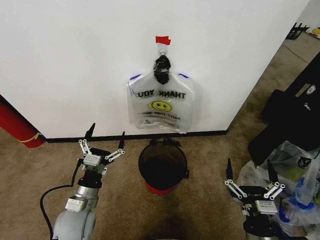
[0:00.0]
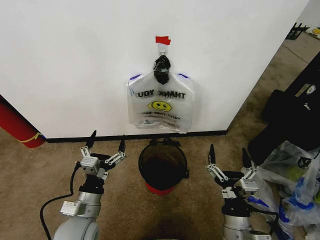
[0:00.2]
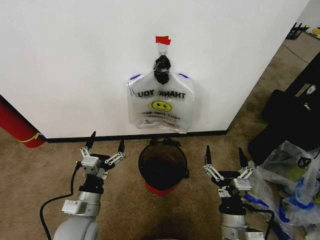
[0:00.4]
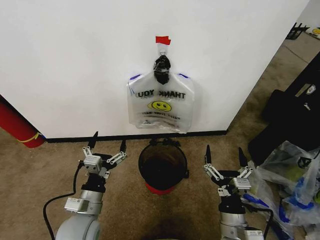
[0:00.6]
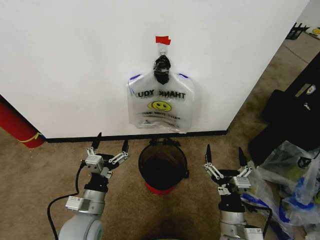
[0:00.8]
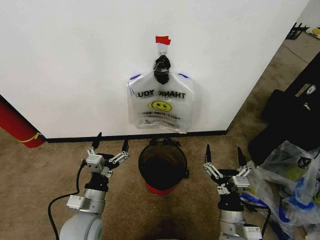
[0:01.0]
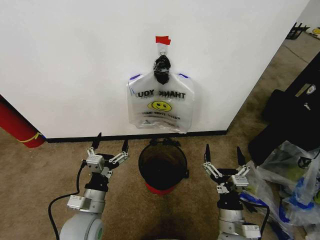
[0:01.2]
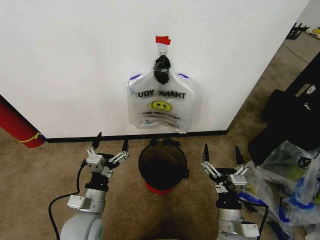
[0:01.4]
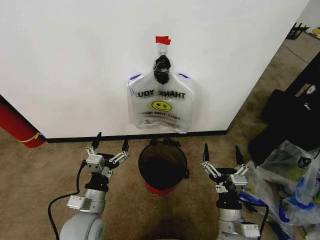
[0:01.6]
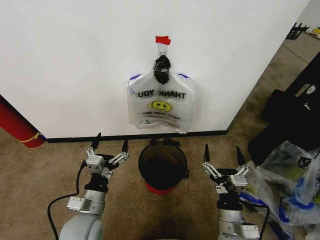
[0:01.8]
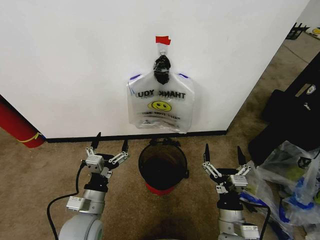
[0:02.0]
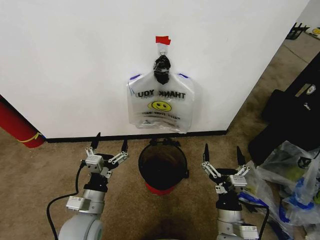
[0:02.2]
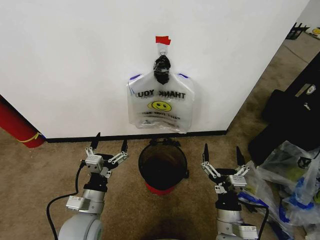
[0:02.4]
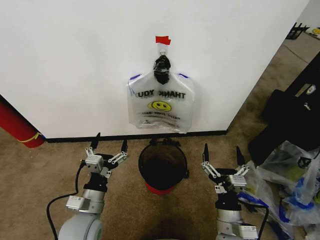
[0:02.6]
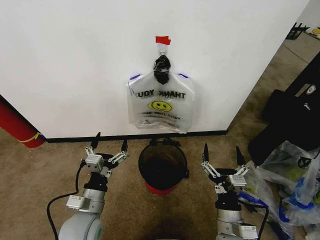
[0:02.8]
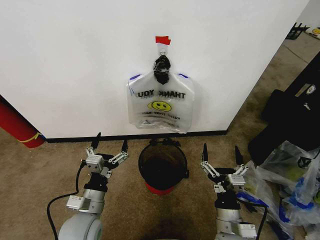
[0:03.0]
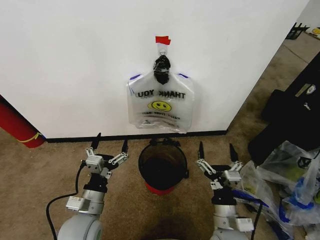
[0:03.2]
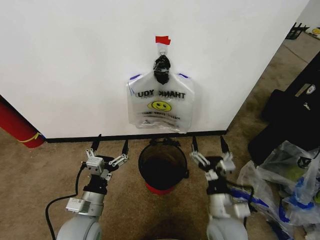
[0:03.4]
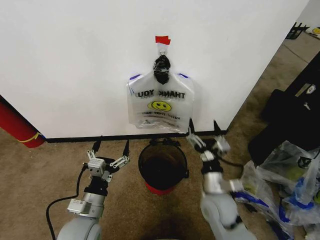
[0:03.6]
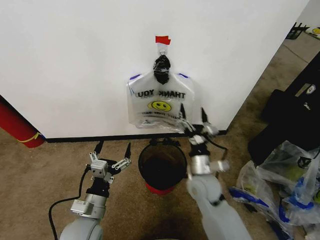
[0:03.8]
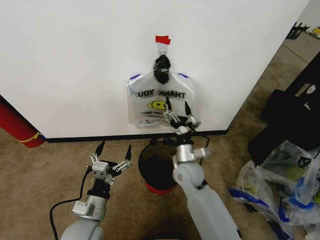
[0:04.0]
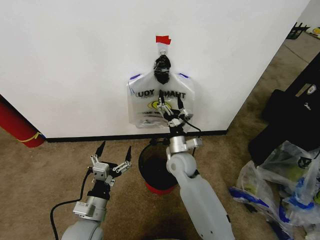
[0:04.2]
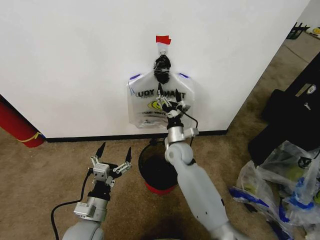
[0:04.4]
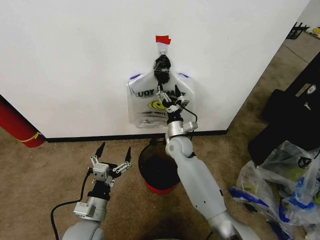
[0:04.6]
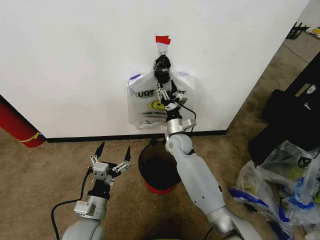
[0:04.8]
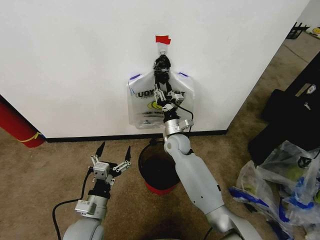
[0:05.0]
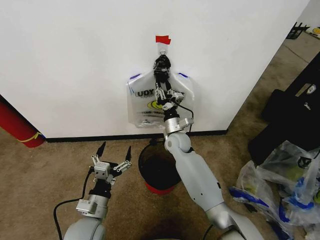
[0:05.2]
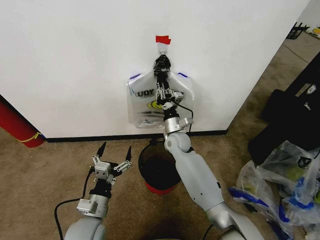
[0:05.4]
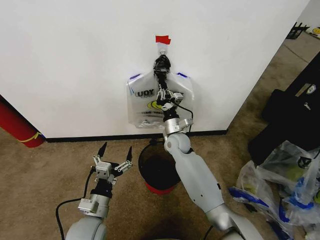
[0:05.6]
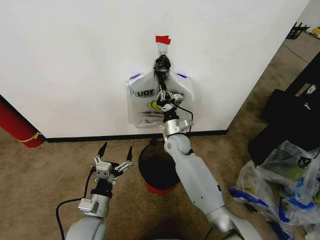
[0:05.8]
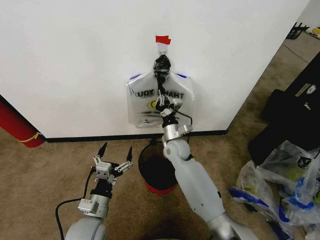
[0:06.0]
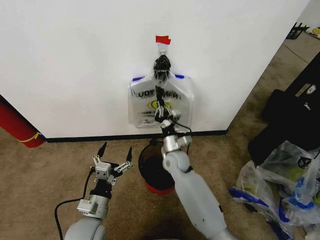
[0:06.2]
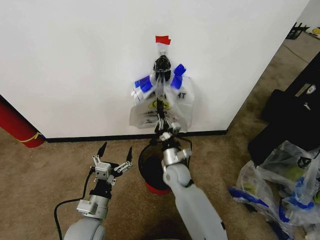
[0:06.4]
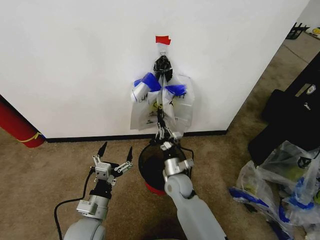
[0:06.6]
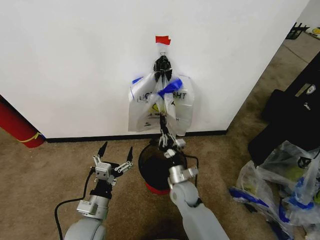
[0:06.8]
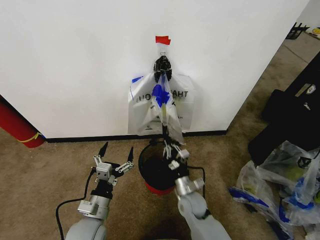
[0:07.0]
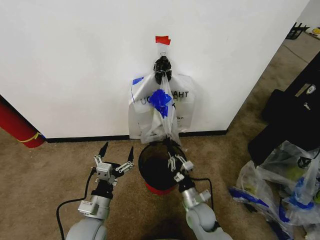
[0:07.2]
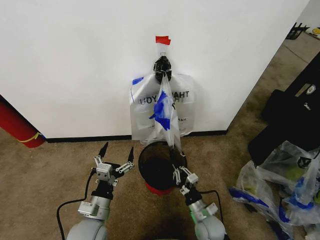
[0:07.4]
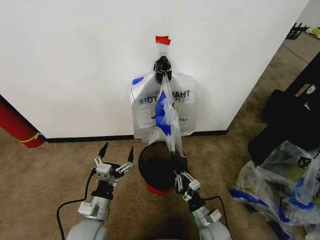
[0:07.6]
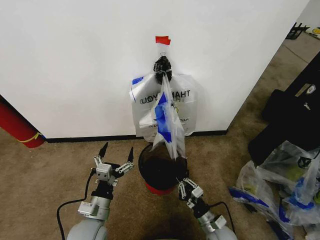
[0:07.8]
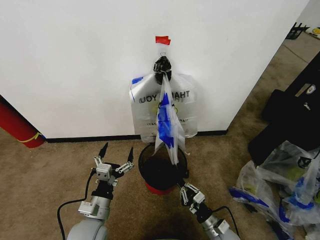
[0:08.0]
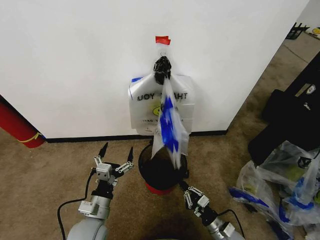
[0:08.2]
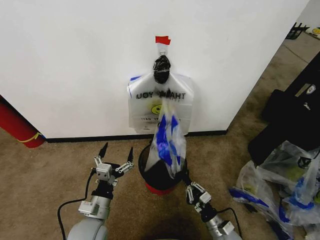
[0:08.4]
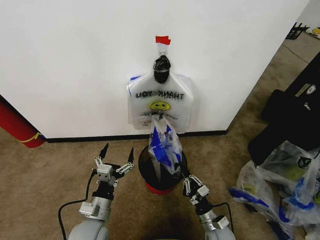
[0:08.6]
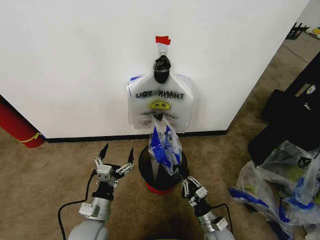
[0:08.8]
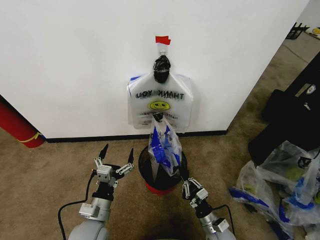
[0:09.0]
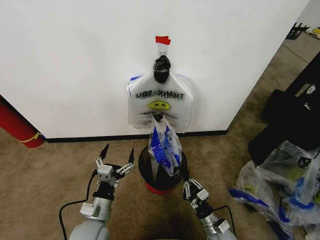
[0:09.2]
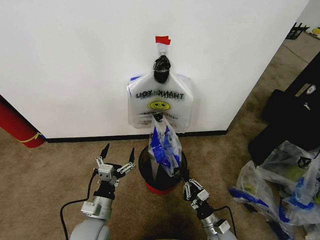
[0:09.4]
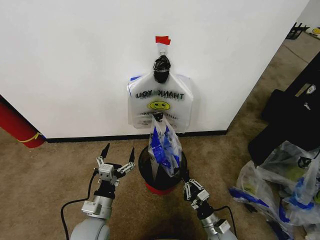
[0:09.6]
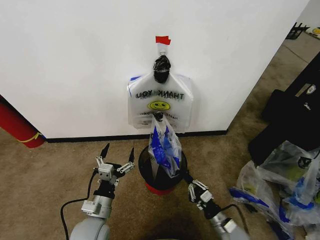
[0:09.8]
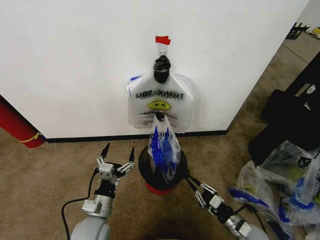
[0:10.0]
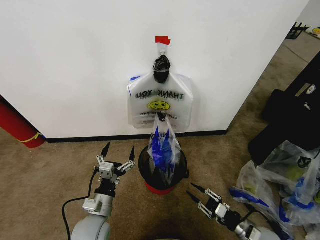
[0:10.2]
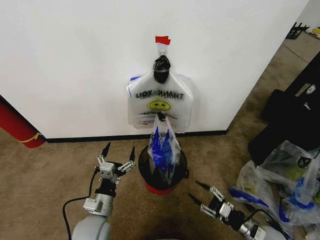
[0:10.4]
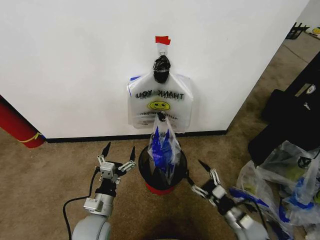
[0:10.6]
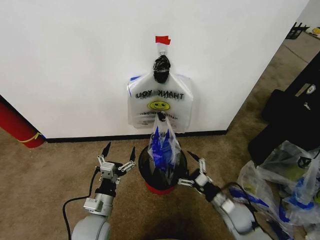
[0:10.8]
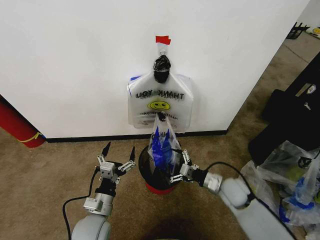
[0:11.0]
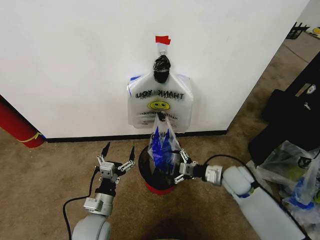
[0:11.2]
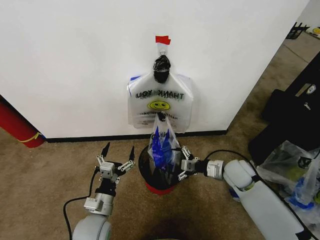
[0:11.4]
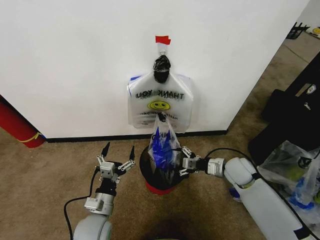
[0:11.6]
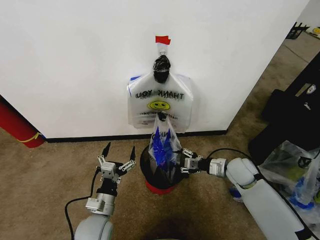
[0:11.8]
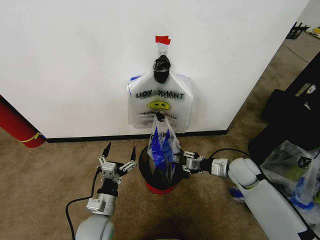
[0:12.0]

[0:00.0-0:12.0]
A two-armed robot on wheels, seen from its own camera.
Task of the whole recording: Pick up the garbage bag from the wall and place it over the trash bin.
0:01.6 to 0:03.0: The two grippers keep their place.
0:03.0 to 0:04.4: The right gripper shifts approximately 30 cm forward.
0:04.4 to 0:06.0: The right gripper closes.
0:06.0 to 0:07.6: The right gripper shifts some 30 cm backward, downward and to the right.
0:09.0 to 0:10.4: The right gripper moves to the right, about 15 cm, and opens its fingers.
0:10.4 to 0:12.0: The right gripper travels forward, upward and to the left by about 25 cm, and opens, then closes once more.

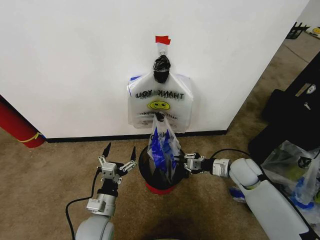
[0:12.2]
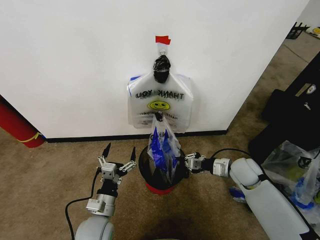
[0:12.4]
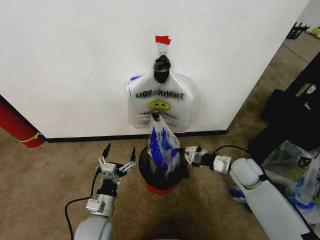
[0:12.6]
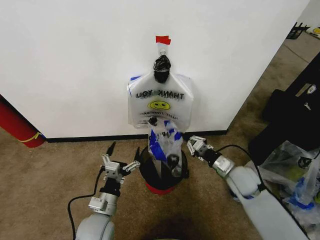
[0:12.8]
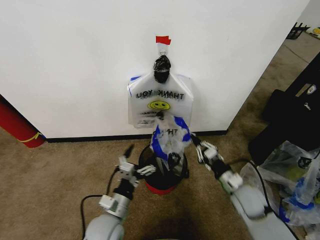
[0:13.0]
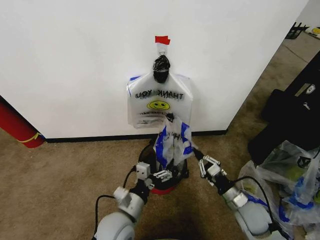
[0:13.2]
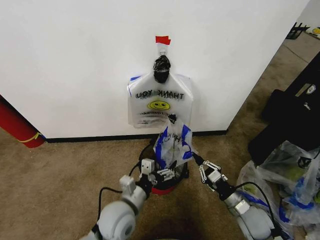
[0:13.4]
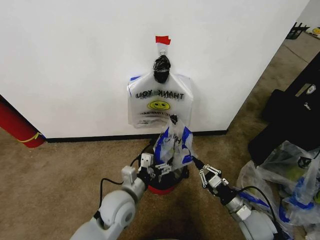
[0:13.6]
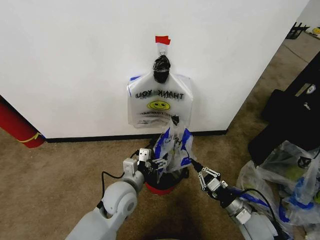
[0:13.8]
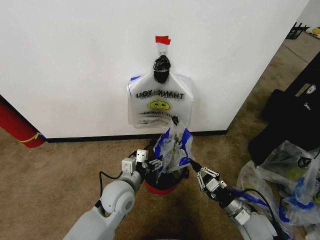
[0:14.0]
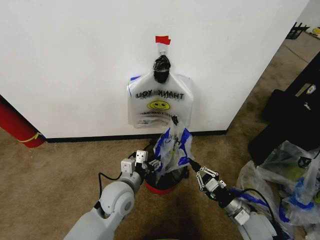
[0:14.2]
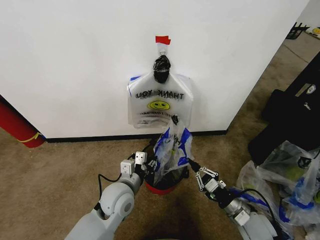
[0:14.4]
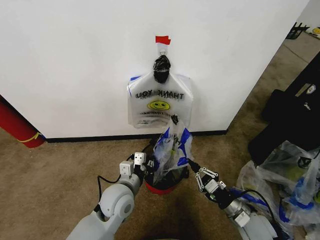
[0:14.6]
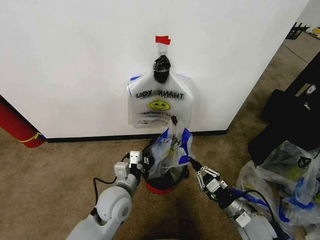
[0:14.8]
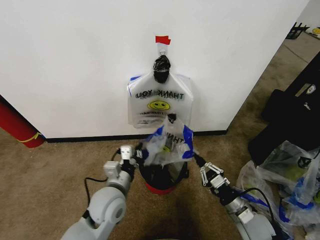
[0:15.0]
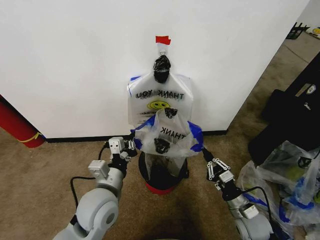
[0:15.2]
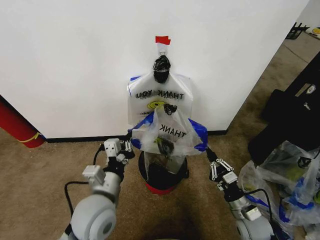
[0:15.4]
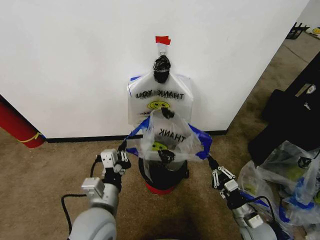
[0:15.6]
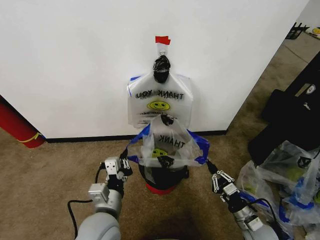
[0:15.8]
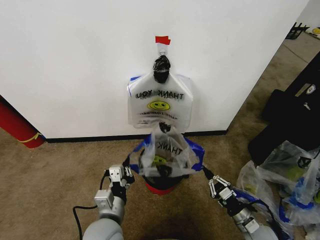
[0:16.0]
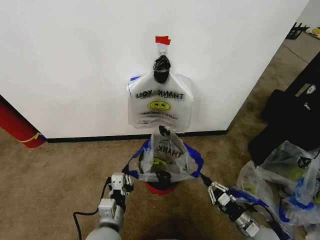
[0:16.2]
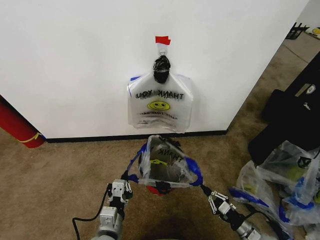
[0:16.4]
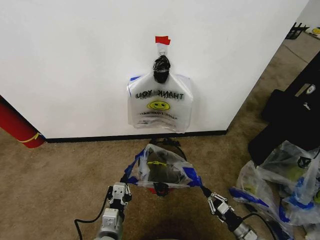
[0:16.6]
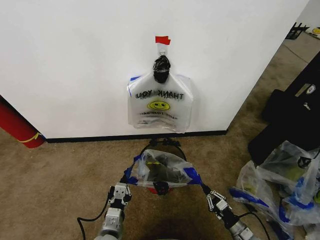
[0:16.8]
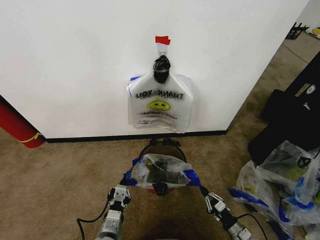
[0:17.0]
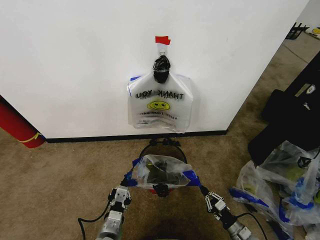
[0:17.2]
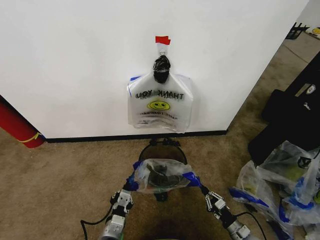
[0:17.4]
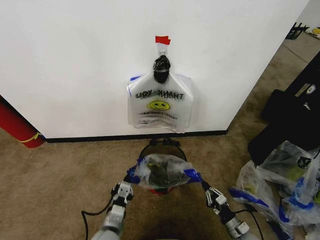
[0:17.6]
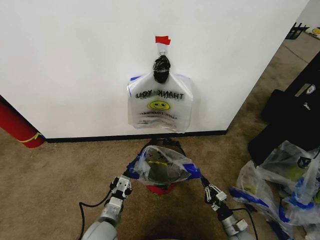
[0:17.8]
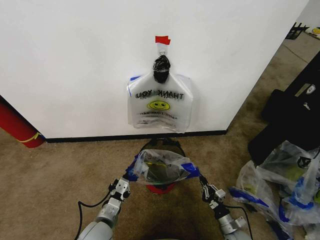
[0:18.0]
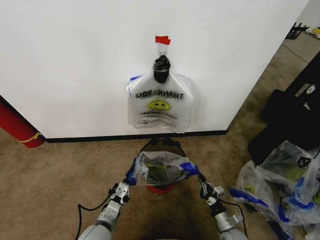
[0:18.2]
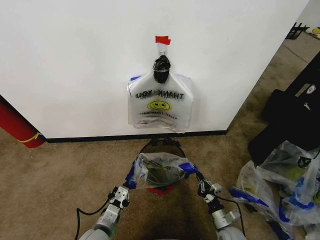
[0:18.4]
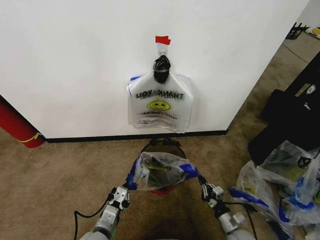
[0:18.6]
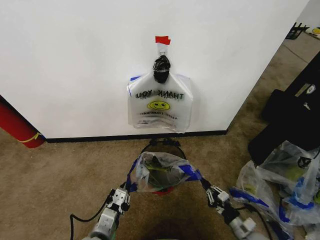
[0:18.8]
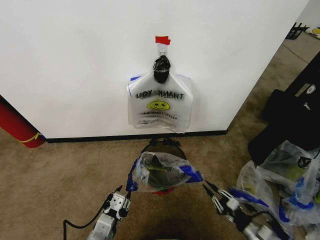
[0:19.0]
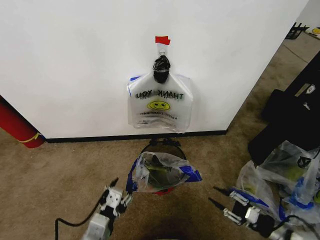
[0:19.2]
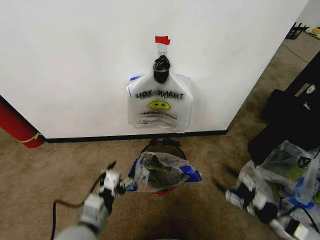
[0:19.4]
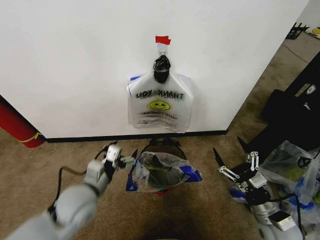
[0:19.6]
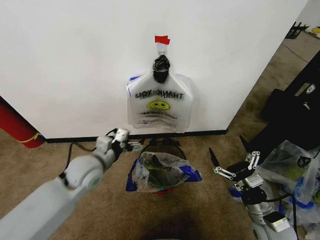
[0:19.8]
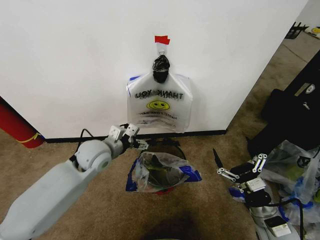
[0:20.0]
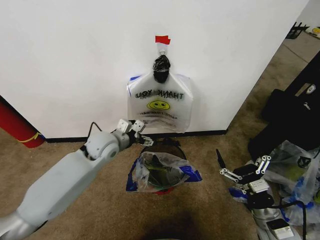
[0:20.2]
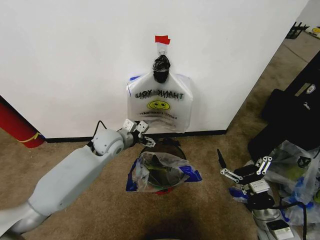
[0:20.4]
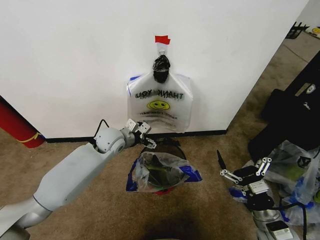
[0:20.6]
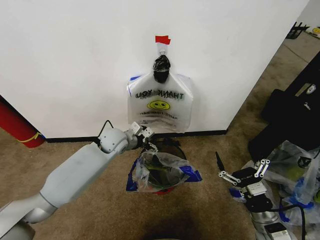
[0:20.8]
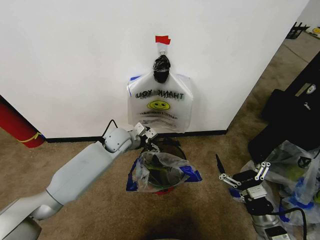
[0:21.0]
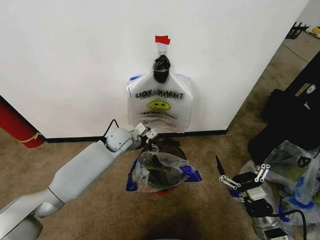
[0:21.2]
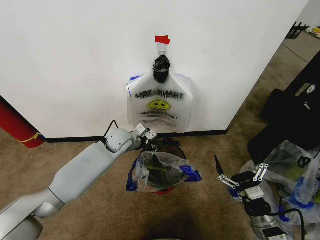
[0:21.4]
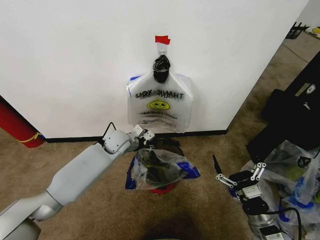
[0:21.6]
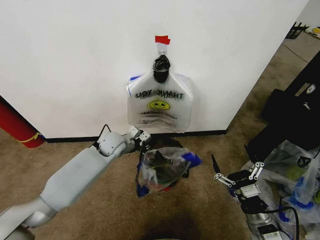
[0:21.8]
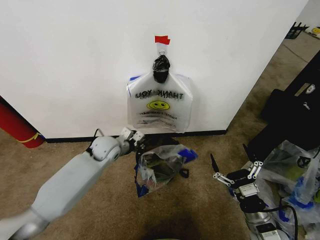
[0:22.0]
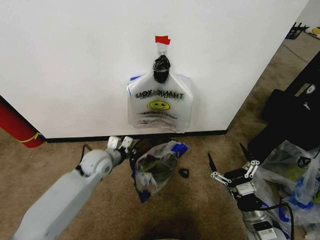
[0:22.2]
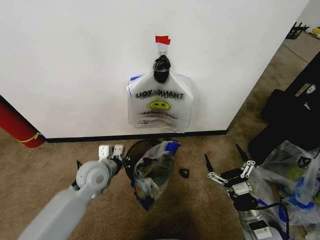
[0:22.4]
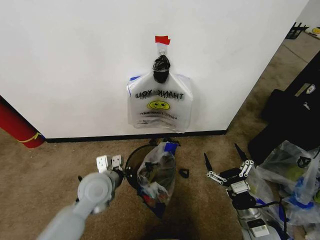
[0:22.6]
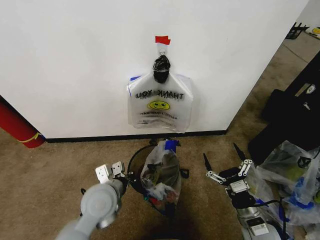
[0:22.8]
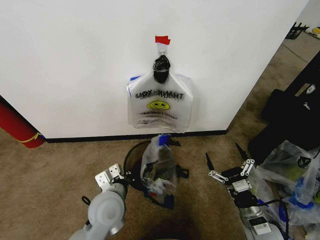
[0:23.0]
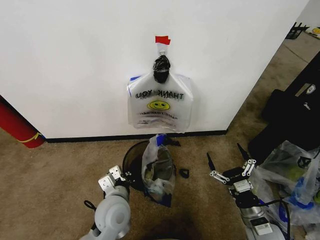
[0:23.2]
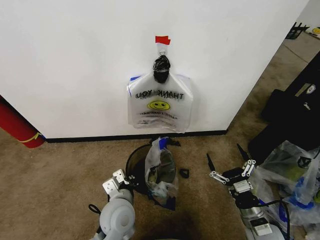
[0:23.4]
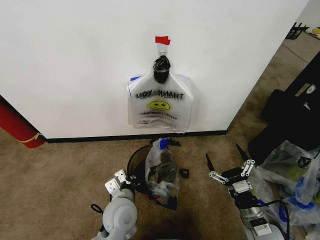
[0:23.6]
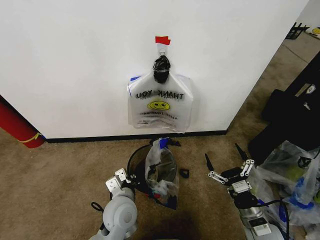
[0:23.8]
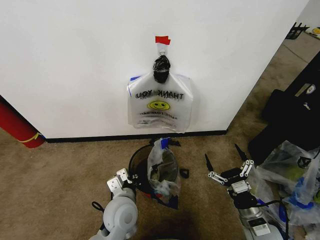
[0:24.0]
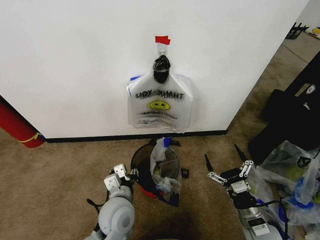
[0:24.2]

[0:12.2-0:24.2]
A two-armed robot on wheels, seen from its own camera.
Task of the whole recording: Pick up the garbage bag from the wall and place it over the trash bin.
0:12.2 to 0:13.8: The left gripper shifts about 10 cm forward, to the right and upward; the right gripper heads backward and downward, covering approximately 20 cm.
0:13.8 to 0:15.2: The left gripper moves upward, approximately 5 cm, and closes.
0:15.2 to 0:16.6: The right gripper goes approximately 15 cm downward, to the right and backward. Meanwhile the left gripper heads downward and backward, covering about 15 cm.
0:16.6 to 0:18.2: The left gripper ends up some 5 cm from where it was. Meanwhile the right gripper travels to the left by roughly 10 cm.
0:18.2 to 0:19.8: The left gripper is displaced upward and forward by approximately 20 cm, and opens its fingers; the right gripper travels upward by roughly 20 cm, and opens.
0:19.8 to 0:21.2: The left gripper shifts some 15 cm forward and to the right.
0:21.2 to 0:22.6: The left gripper is displaced backward by some 20 cm, and closes up.
0:22.6 to 0:24.2: The left gripper shifts approximately 10 cm to the right and backward, and opens its fingers.
